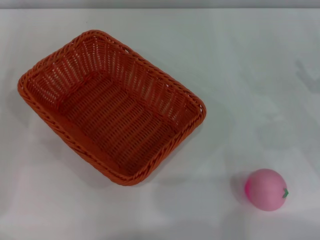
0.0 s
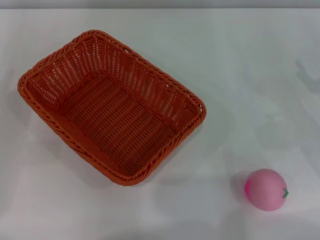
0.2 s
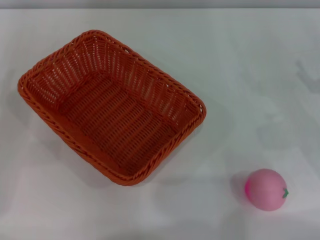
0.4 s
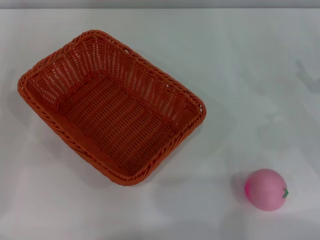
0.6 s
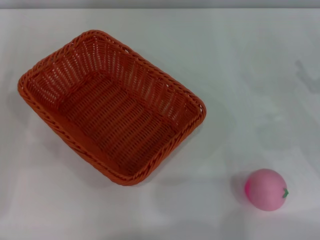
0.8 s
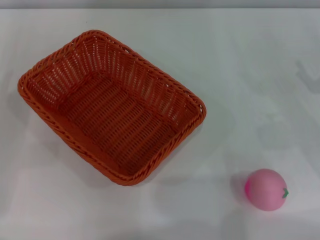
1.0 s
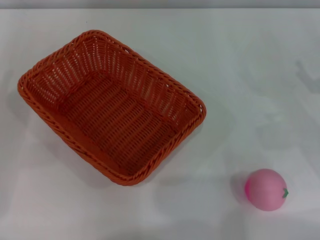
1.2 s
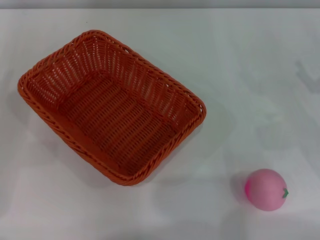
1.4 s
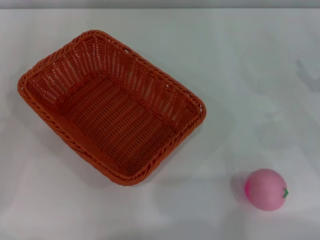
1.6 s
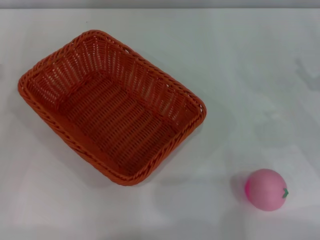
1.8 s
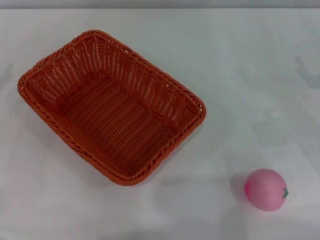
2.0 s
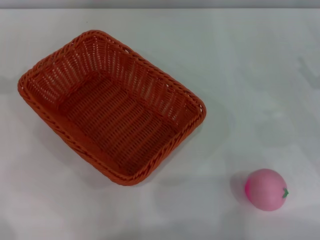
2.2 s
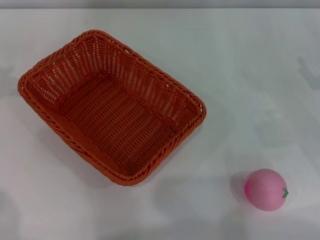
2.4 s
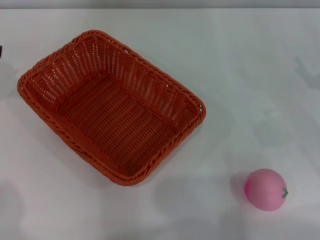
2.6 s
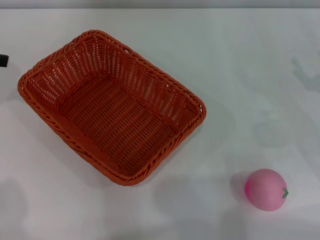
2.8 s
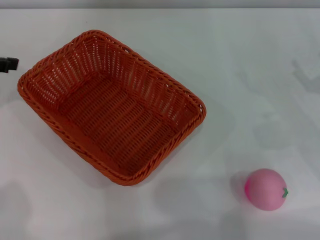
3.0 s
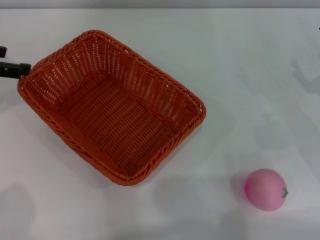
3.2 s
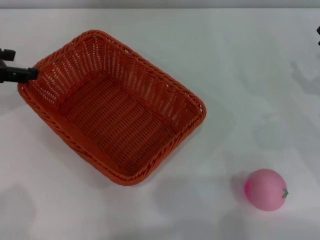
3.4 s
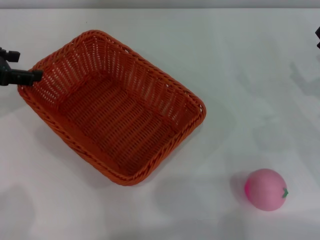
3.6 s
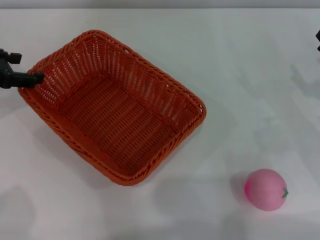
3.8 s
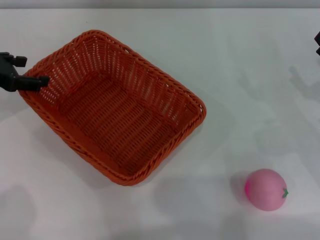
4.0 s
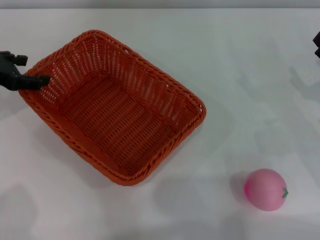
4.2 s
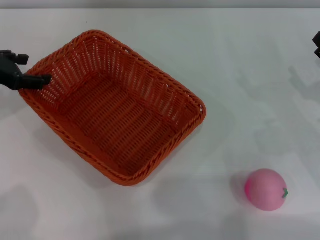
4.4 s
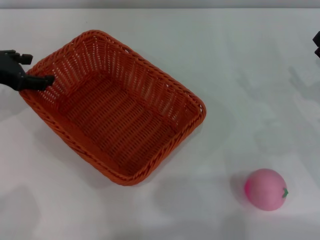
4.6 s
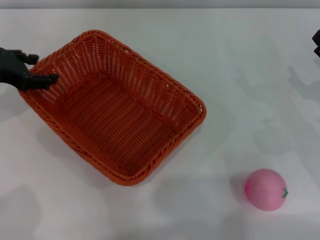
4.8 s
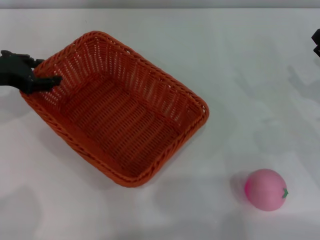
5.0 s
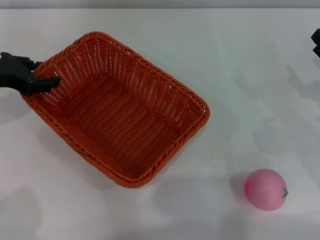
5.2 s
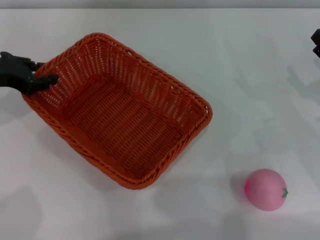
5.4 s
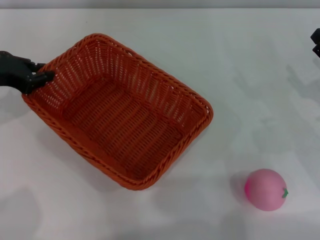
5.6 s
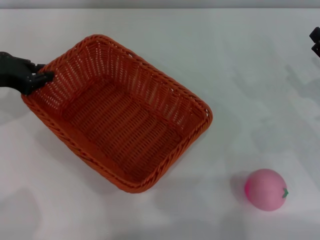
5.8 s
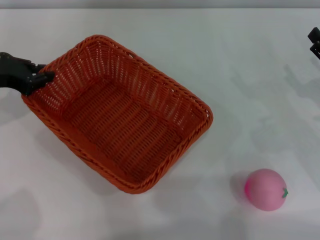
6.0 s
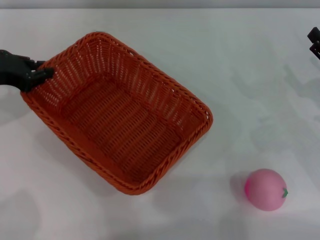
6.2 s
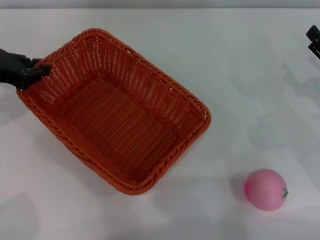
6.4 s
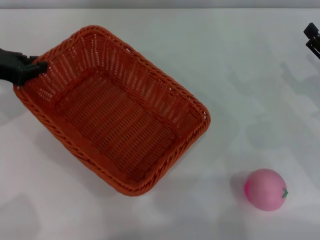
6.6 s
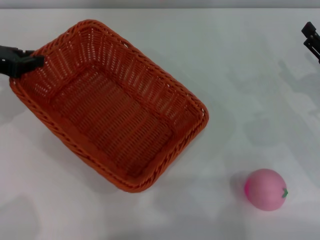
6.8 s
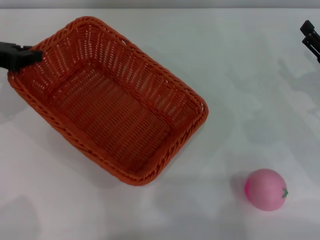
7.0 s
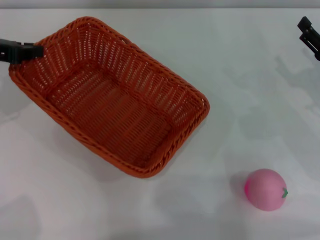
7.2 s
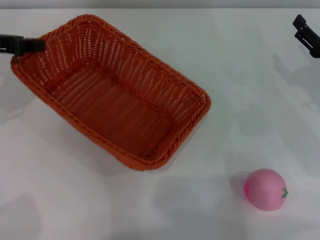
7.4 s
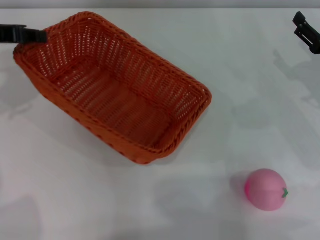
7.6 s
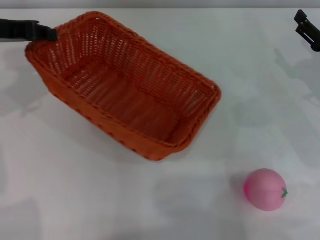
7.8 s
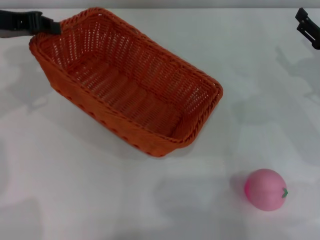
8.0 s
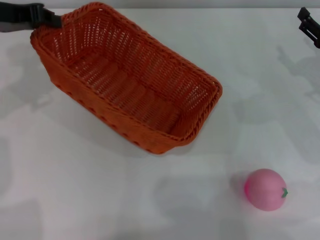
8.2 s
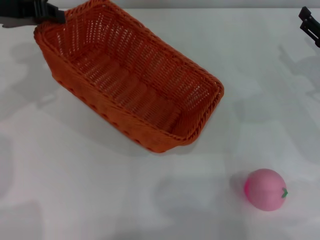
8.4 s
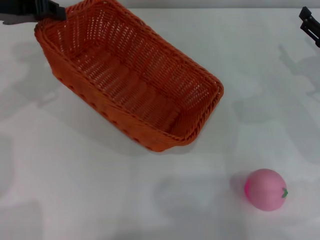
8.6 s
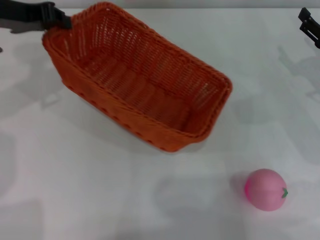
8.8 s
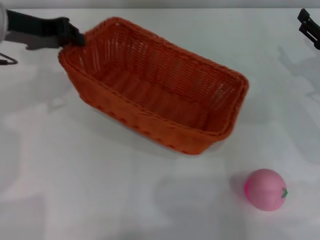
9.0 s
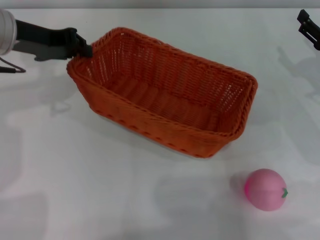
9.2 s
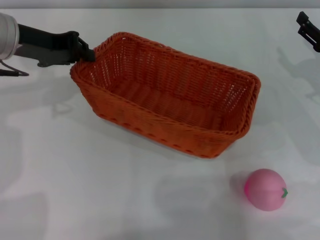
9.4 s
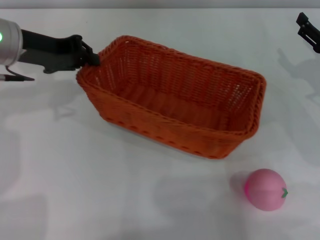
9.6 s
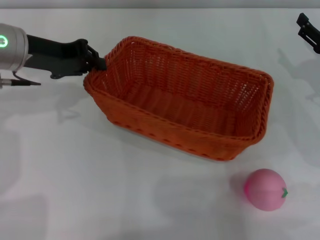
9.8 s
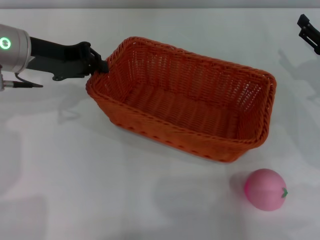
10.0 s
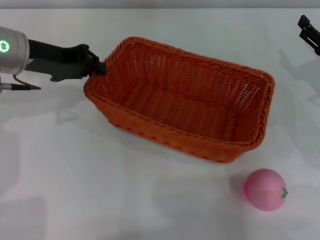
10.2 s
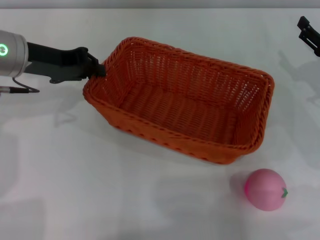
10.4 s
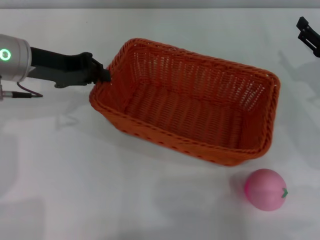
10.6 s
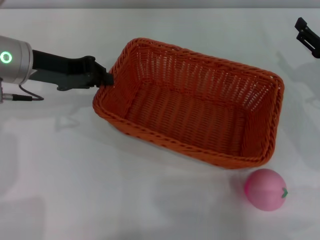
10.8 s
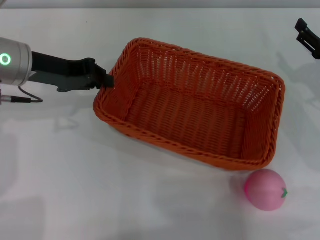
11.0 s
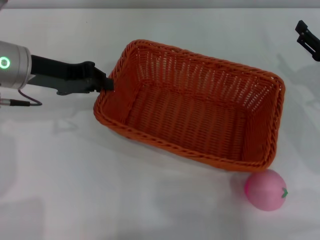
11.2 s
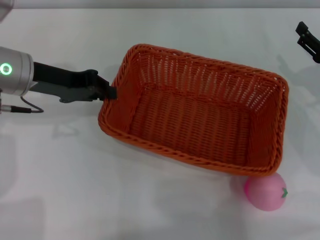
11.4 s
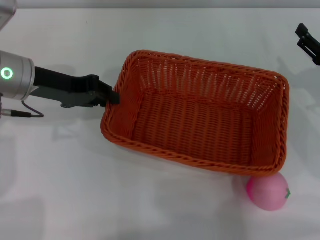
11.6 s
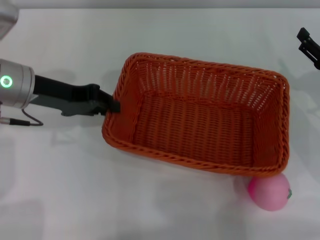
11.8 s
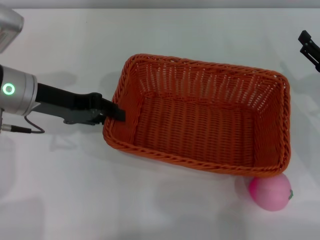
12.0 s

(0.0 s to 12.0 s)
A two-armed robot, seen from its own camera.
Step, 0.0 s - 7.6 s: Pick up the light basket with the left gripper.
3.0 s - 4.4 s: The left gripper moves downward, about 5 cm.
4.4 s - 6.0 s: The left gripper closes.
6.0 s - 7.6 s: The left gripper travels upward by some 5 cm.
7.6 s - 9.0 s: The left gripper shifts some 5 cm to the right.
9.0 s - 10.4 s: The grippers move only a little.

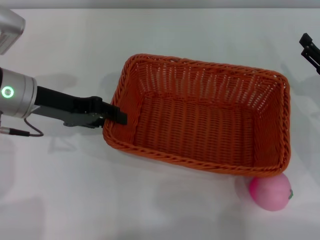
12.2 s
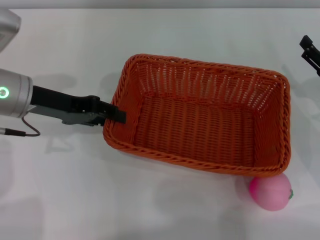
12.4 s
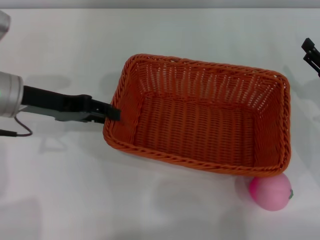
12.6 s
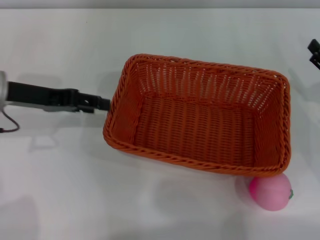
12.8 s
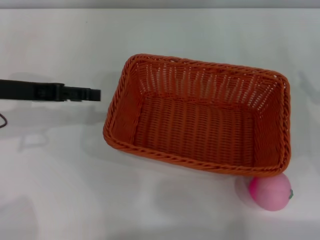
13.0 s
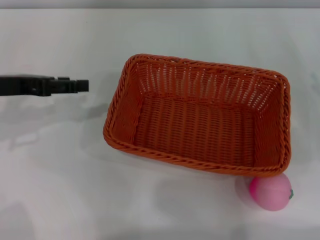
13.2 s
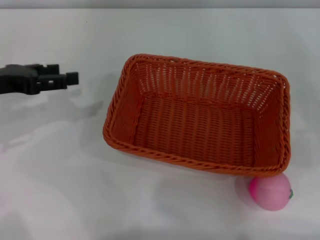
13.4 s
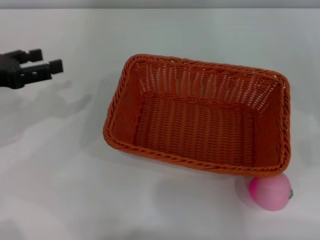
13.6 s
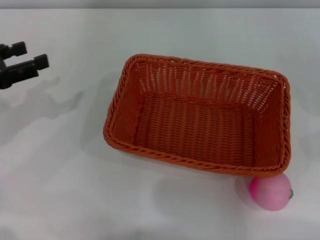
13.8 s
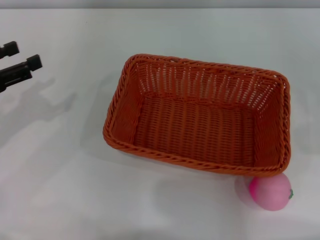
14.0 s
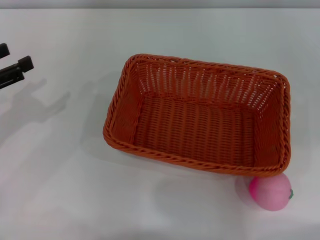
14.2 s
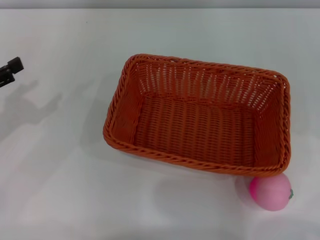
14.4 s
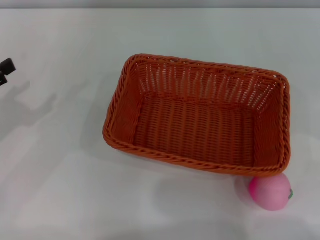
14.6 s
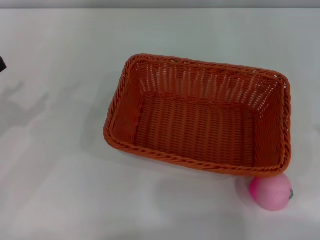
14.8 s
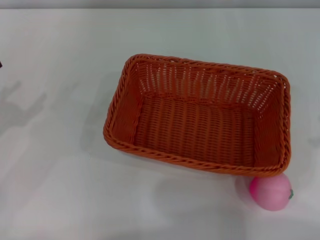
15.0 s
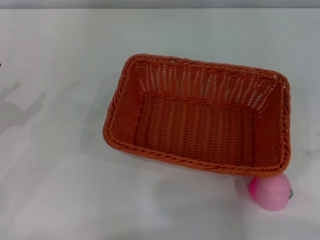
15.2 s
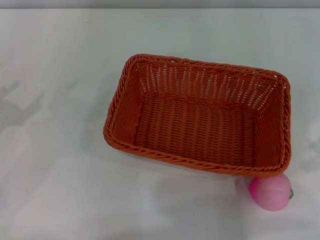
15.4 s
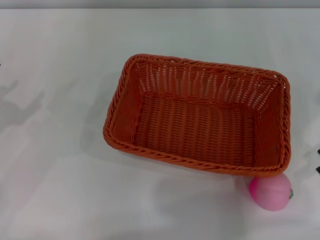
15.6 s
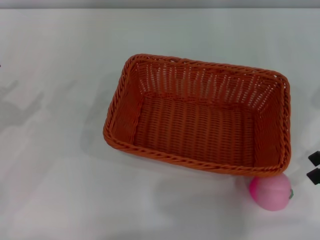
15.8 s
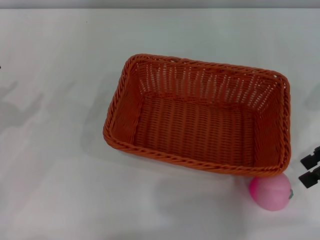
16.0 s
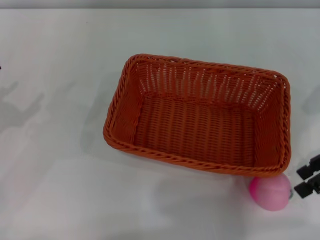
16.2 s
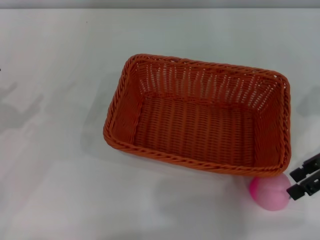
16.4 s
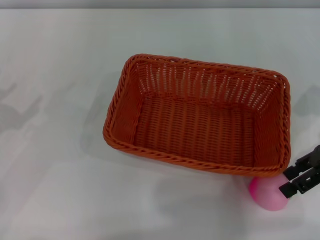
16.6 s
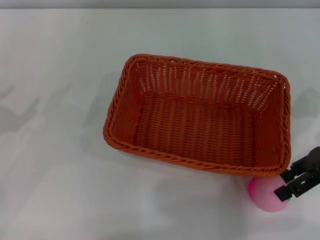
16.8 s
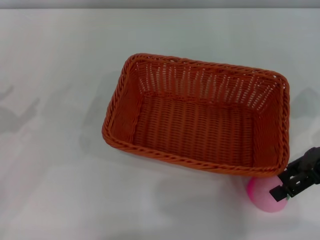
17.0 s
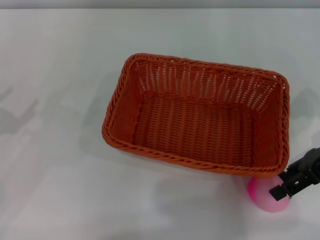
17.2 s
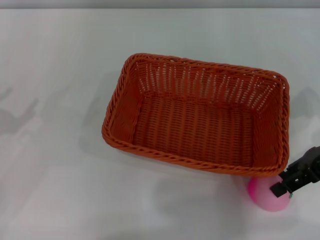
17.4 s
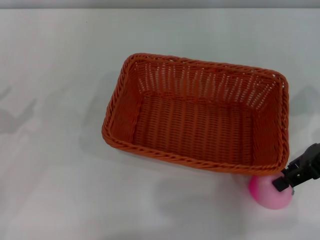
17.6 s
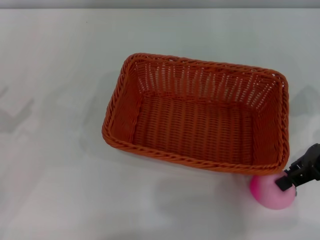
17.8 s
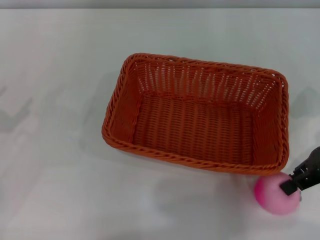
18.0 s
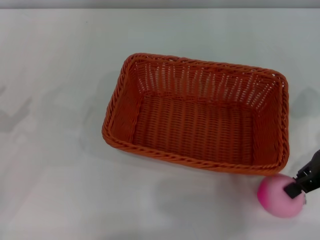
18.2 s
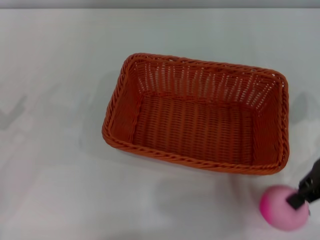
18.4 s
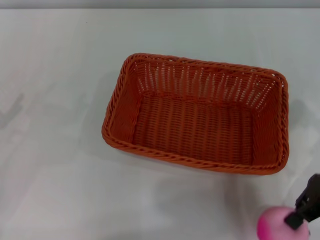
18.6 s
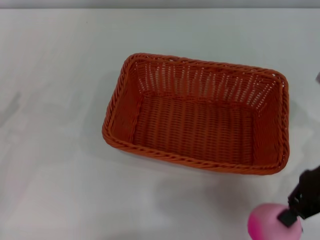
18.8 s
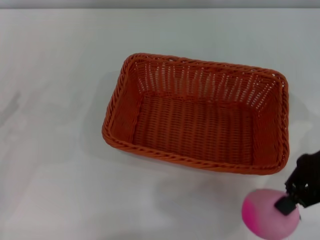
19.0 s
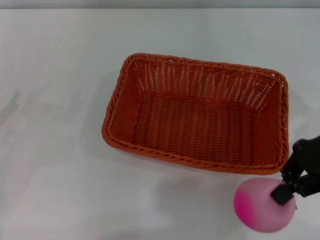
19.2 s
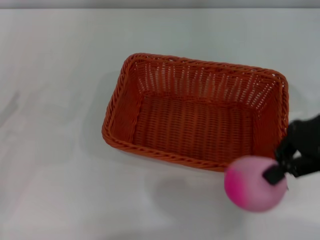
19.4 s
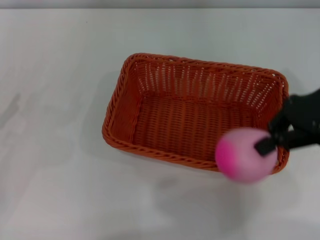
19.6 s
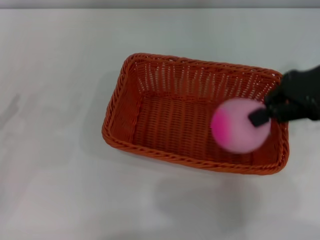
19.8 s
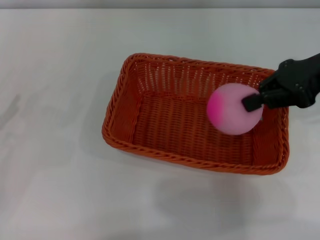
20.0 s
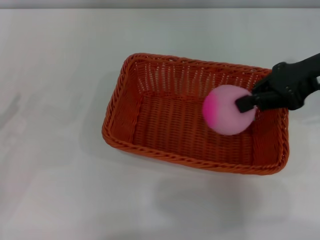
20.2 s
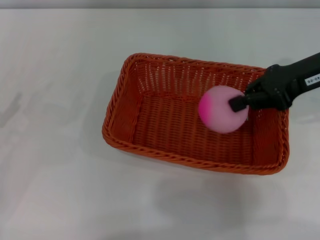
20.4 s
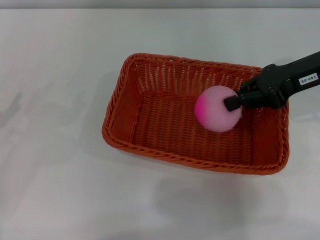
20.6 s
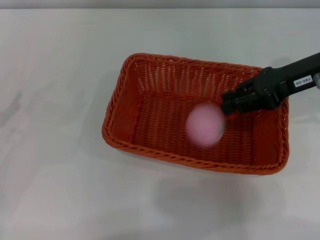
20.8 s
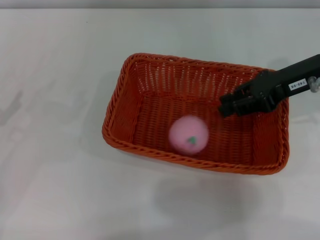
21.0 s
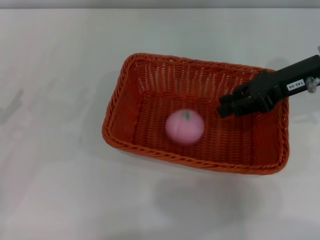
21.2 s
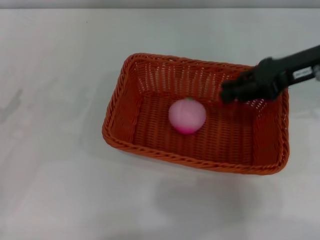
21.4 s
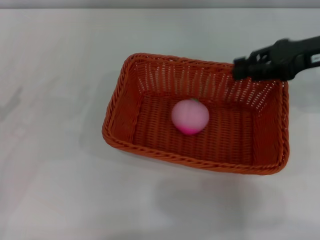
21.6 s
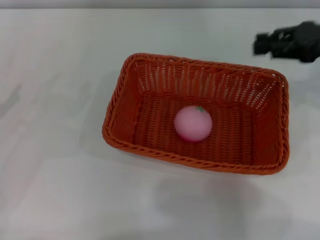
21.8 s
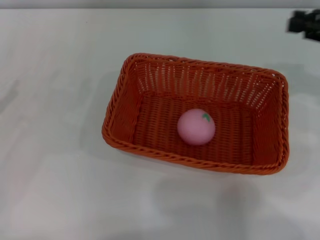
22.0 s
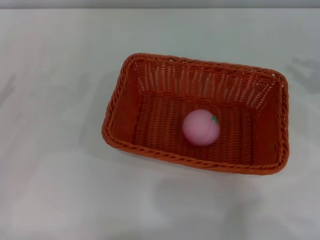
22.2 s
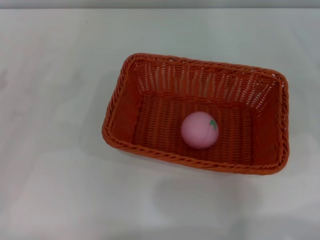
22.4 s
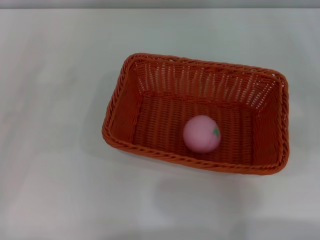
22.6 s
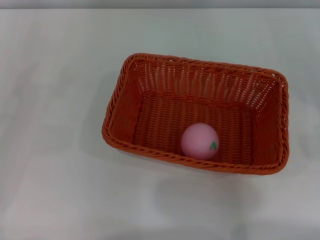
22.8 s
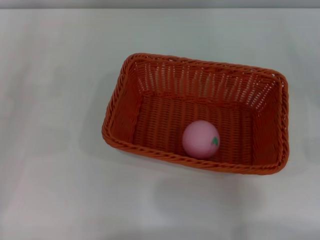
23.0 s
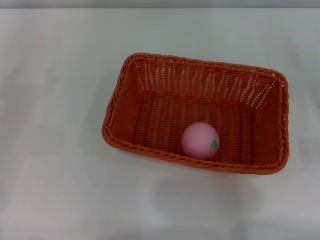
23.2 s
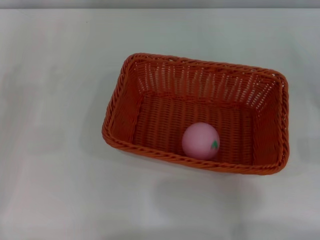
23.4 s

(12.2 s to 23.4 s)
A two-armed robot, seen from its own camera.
Step, 13.0 s - 19.2 s: Pick up the peach with the left gripper.
Step, 19.4 s - 21.6 s: Place the peach into the basket with the left gripper.
12.2 s - 13.8 s: The right gripper goes about 15 cm to the right, backward and upward. The left gripper shifts approximately 10 cm to the left, and opens its fingers.
13.8 s - 15.4 s: The left gripper changes place by roughly 5 cm.
15.4 s - 17.0 s: The right gripper travels to the left and downward by approximately 10 cm.
17.0 s - 18.6 s: The right gripper closes its fingers.
18.6 s - 20.2 s: The right gripper is displaced upward and forward by roughly 10 cm.
20.2 s - 21.8 s: The right gripper moves to the right, roughly 5 cm, and opens.
21.8 s - 23.4 s: The right gripper travels downward, backward and to the right by approximately 20 cm, and opens.
